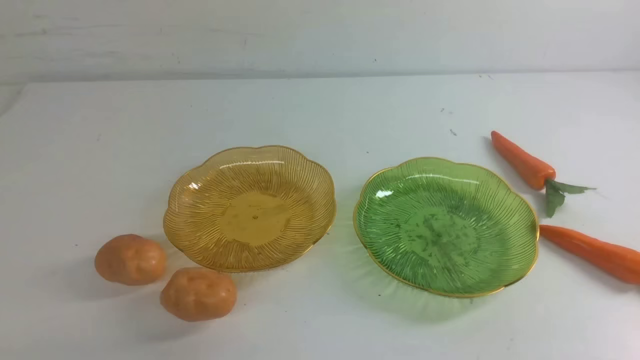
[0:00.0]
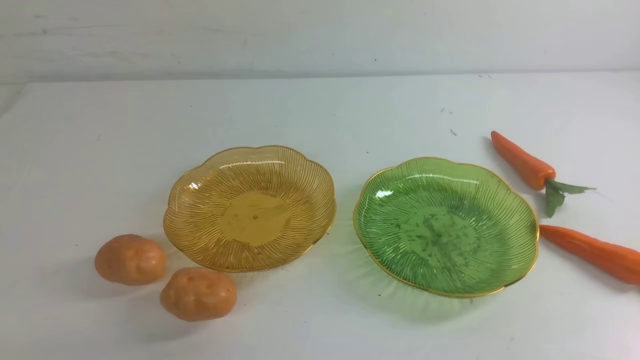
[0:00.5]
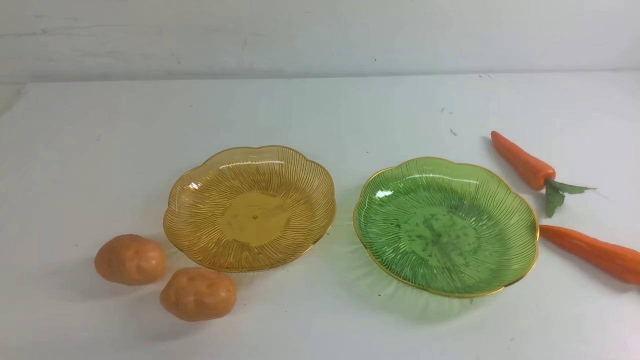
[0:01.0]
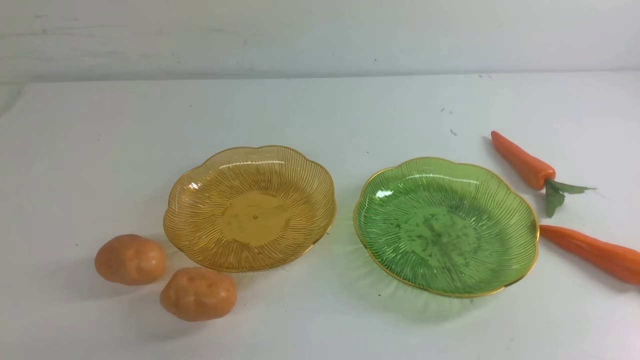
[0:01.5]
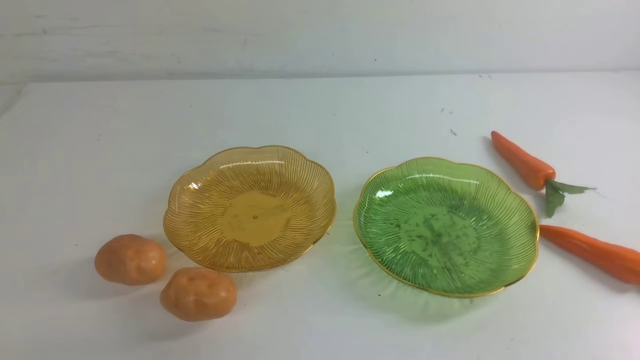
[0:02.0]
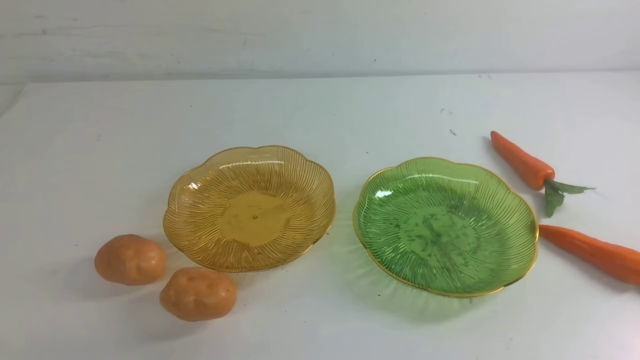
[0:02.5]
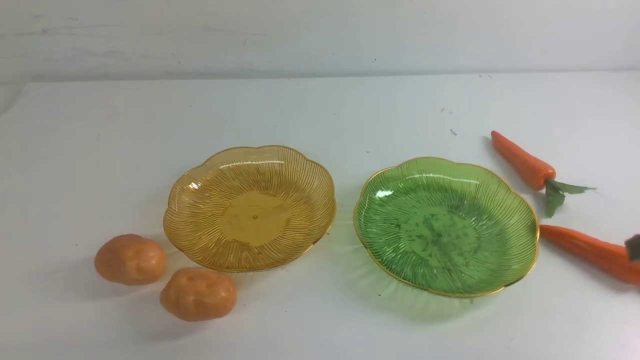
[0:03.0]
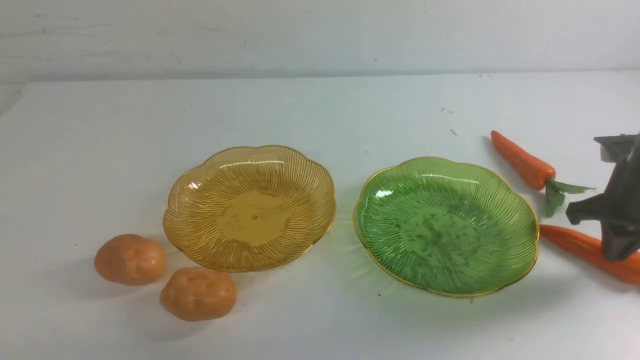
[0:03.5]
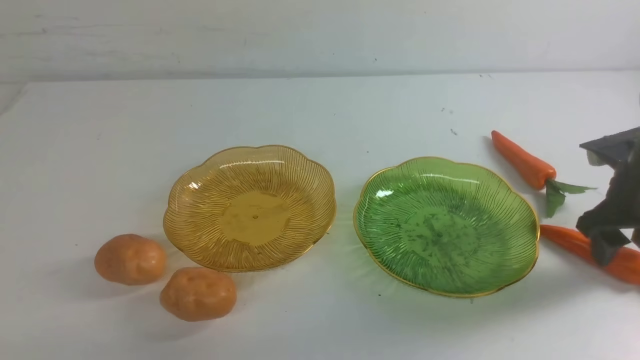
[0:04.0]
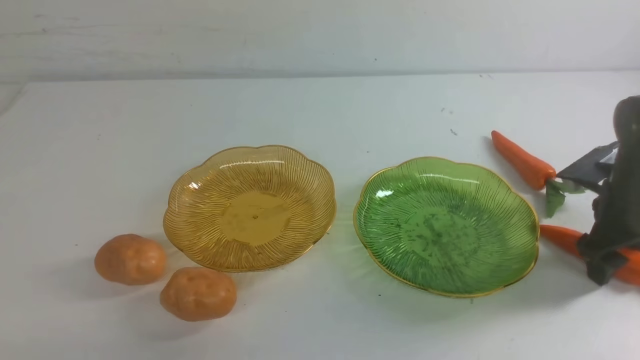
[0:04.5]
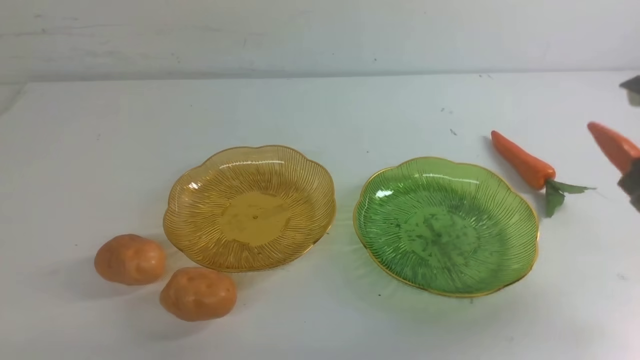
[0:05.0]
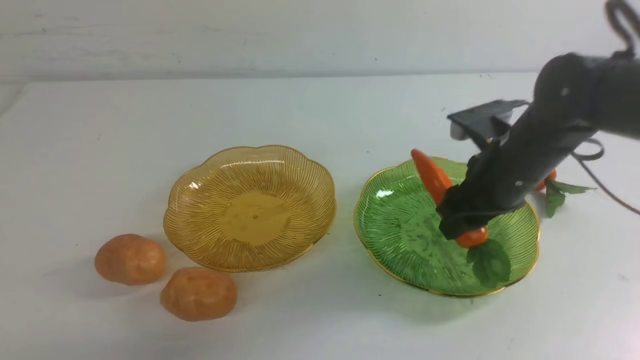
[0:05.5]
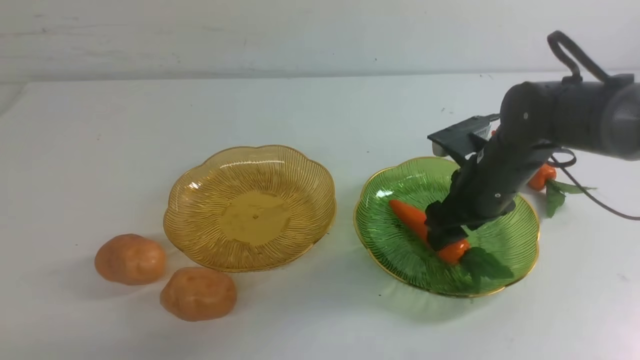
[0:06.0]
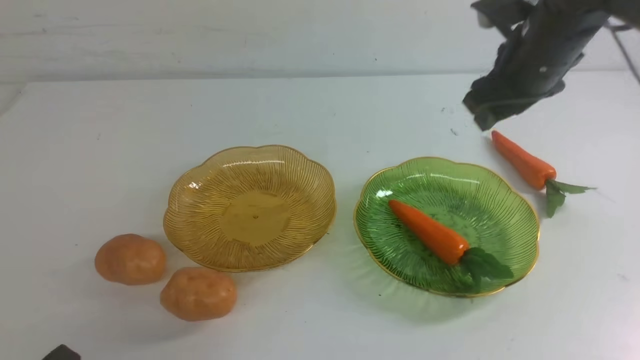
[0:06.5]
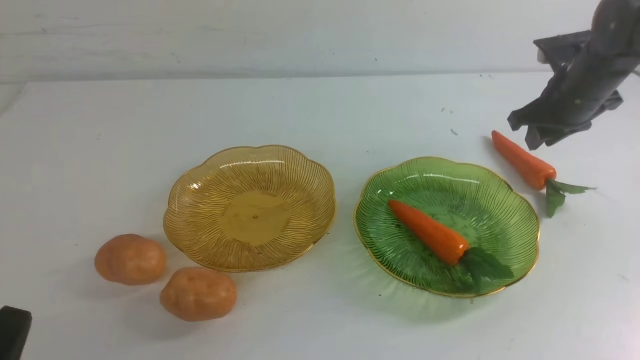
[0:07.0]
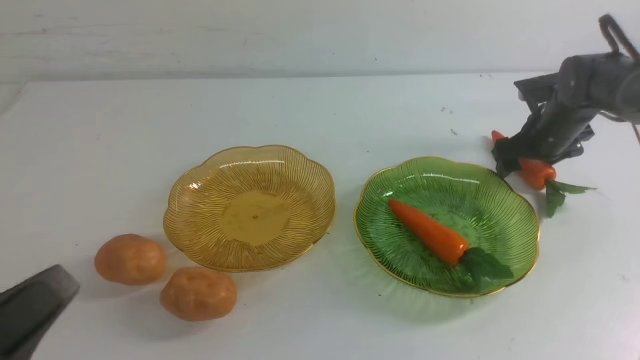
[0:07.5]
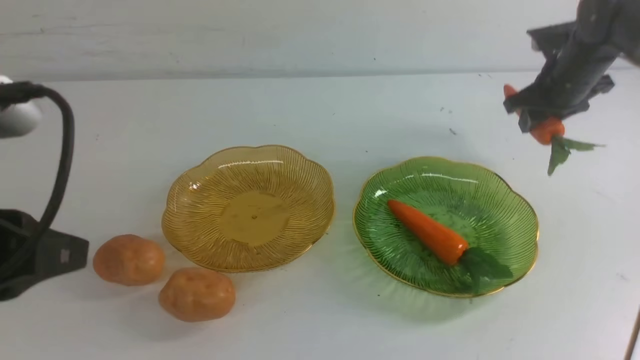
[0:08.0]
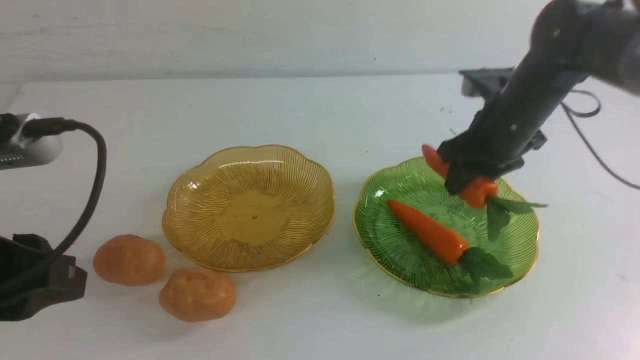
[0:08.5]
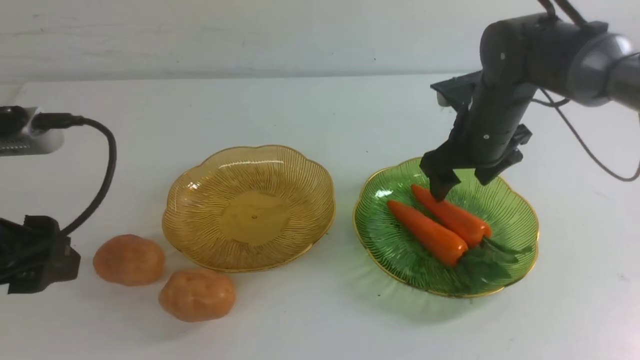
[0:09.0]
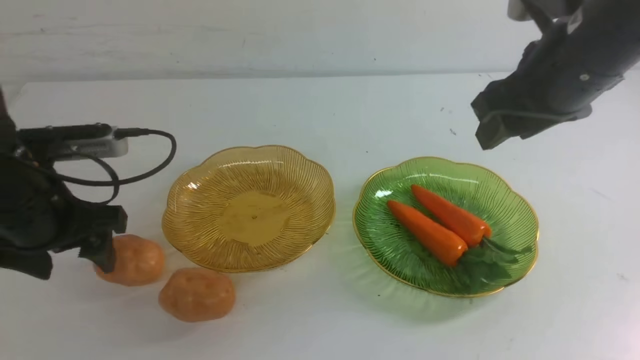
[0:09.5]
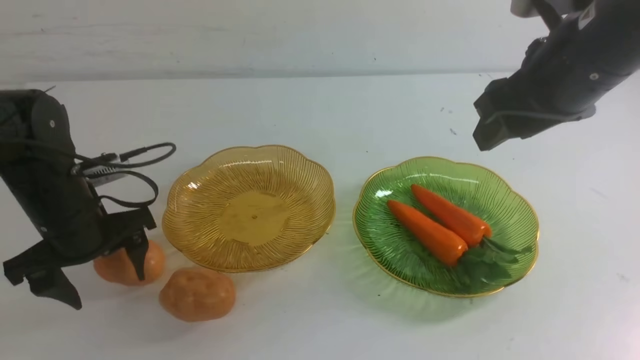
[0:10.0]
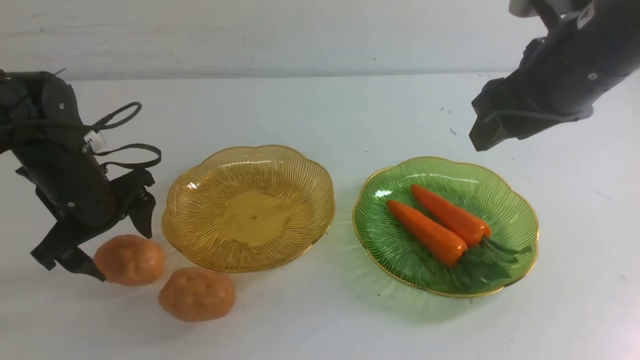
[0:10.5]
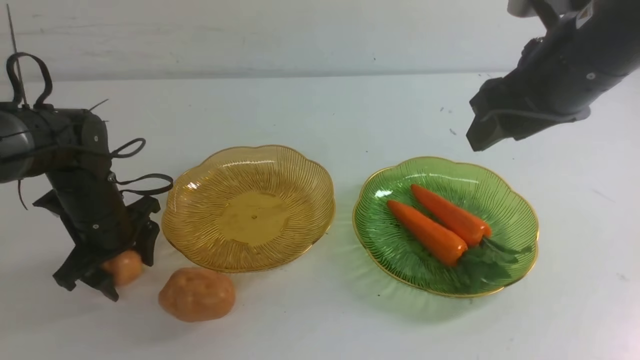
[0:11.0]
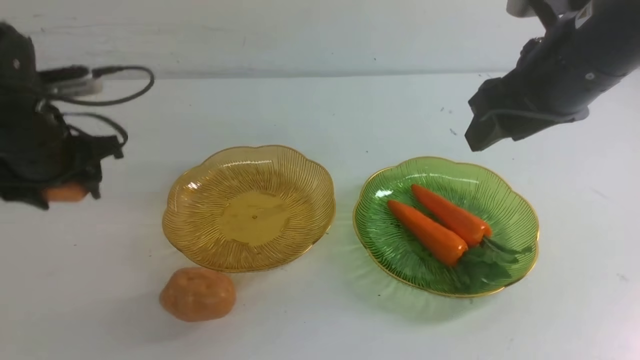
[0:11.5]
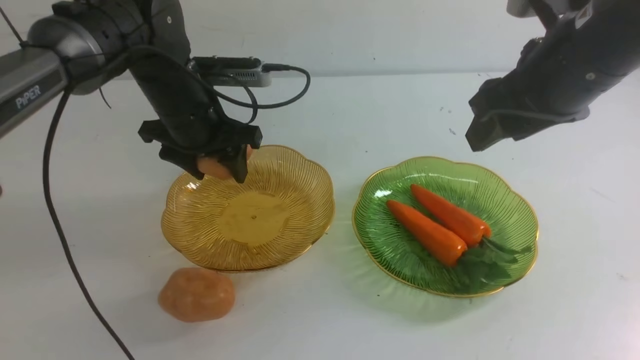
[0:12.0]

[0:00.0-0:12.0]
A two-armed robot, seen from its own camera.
Step, 0:00.0 to 0:09.0: use the right arm to grab a carrot and put it into the right plate.
0:02.0 to 0:04.0: The right gripper goes approximately 30 cm forward, and opens its fingers.
0:04.0 to 0:06.0: The right gripper goes roughly 15 cm to the left.
0:06.0 to 0:08.0: The right gripper shifts approximately 15 cm forward, to the right and upward, while the left gripper is displaced upward and forward by approximately 20 cm.
0:08.0 to 0:10.0: The right gripper moves backward, upward and to the left, roughly 25 cm. The left gripper heads forward and downward, covering approximately 25 cm, and opens its fingers.
0:10.0 to 0:12.0: The left gripper moves to the right and forward, about 15 cm.

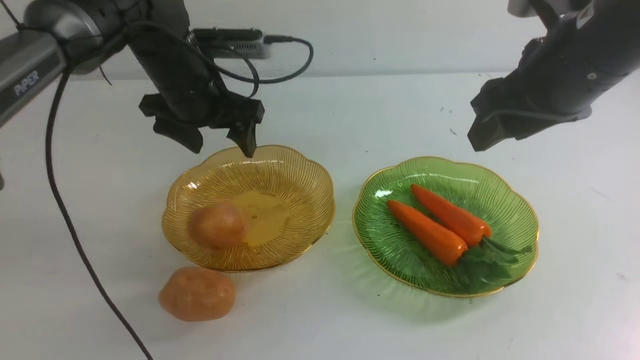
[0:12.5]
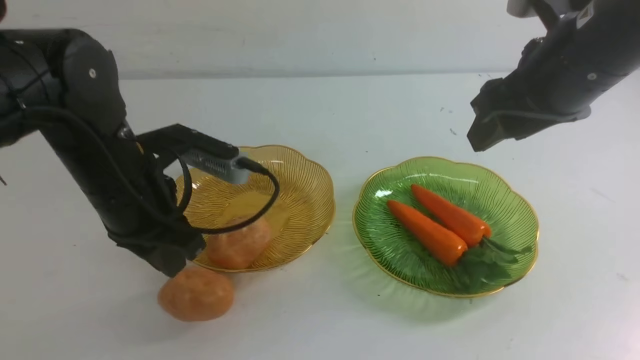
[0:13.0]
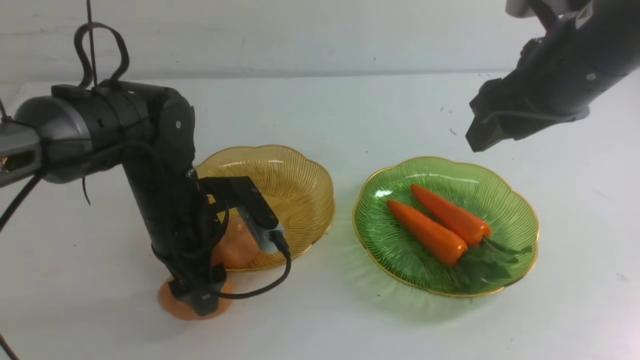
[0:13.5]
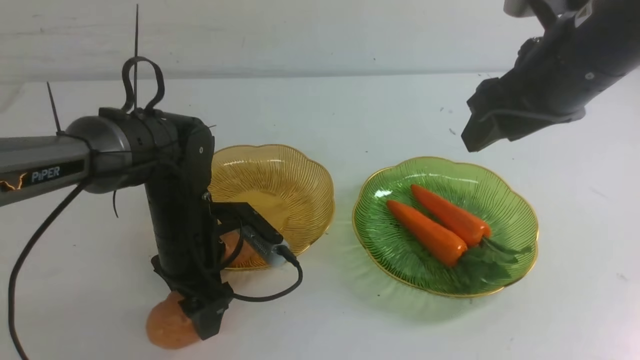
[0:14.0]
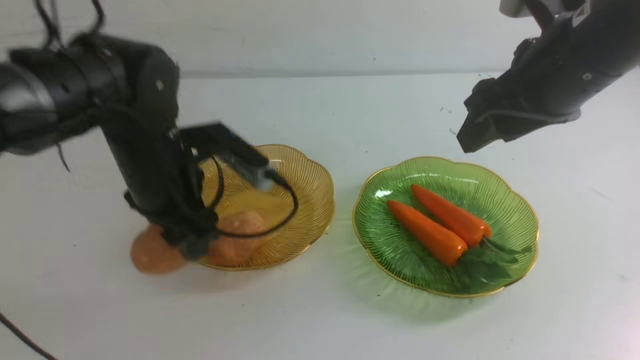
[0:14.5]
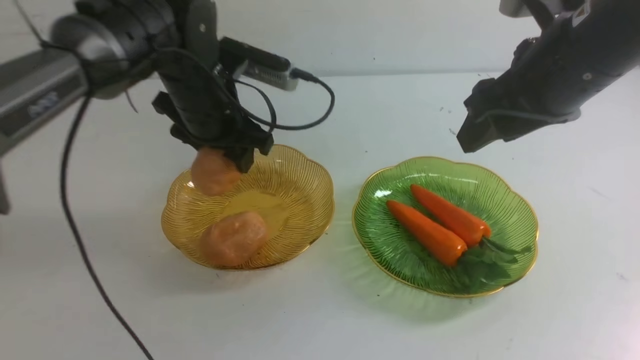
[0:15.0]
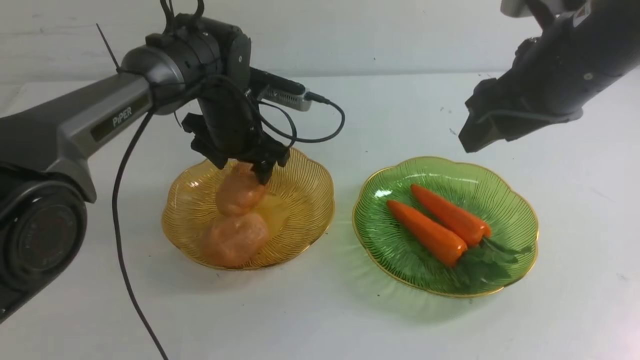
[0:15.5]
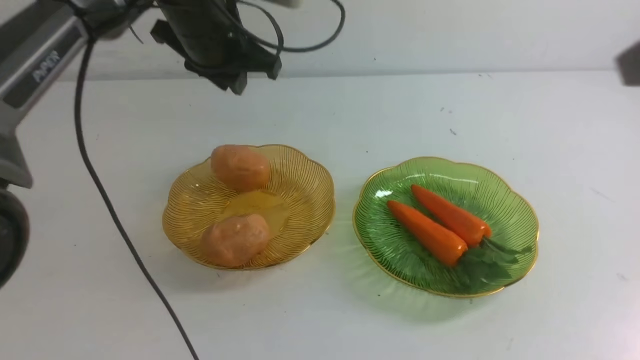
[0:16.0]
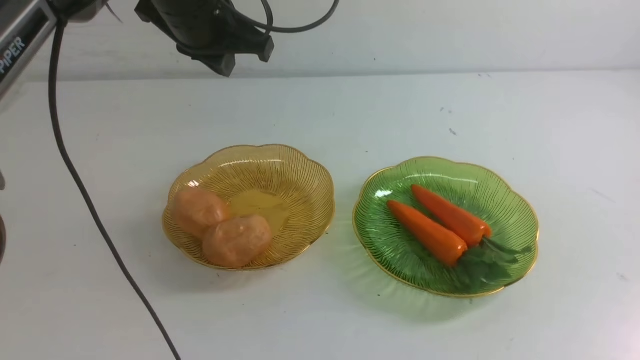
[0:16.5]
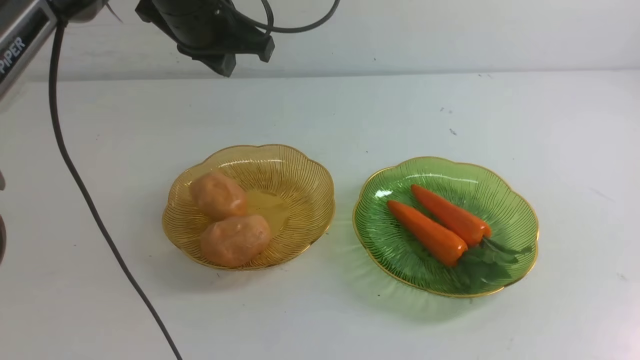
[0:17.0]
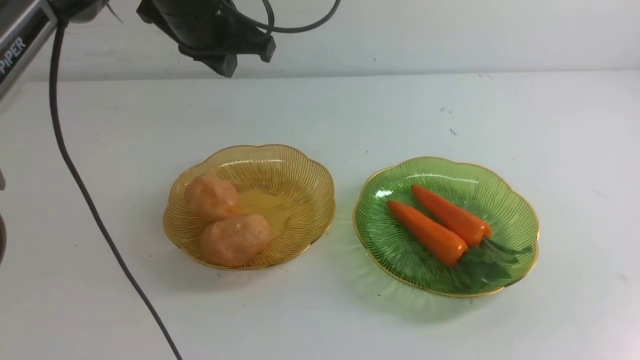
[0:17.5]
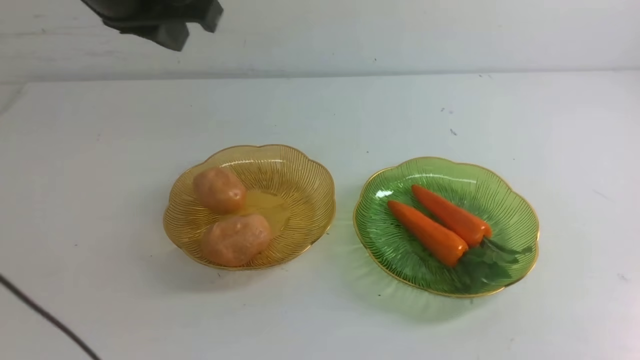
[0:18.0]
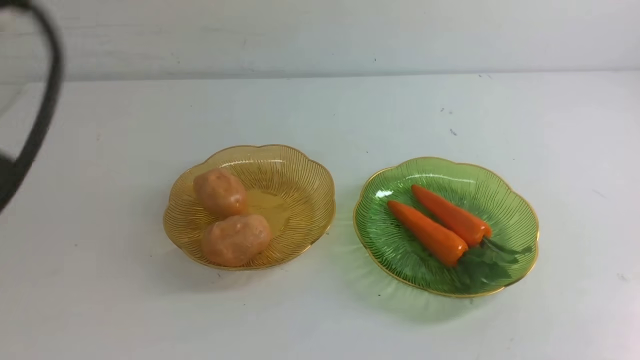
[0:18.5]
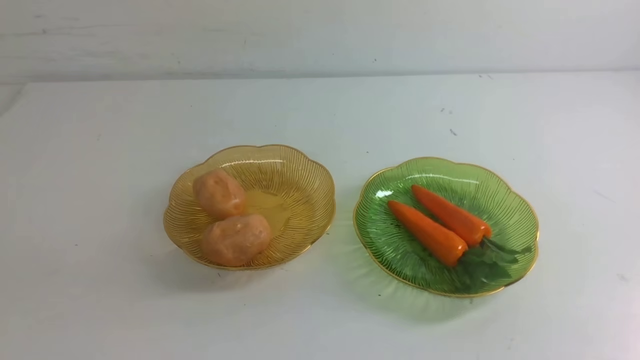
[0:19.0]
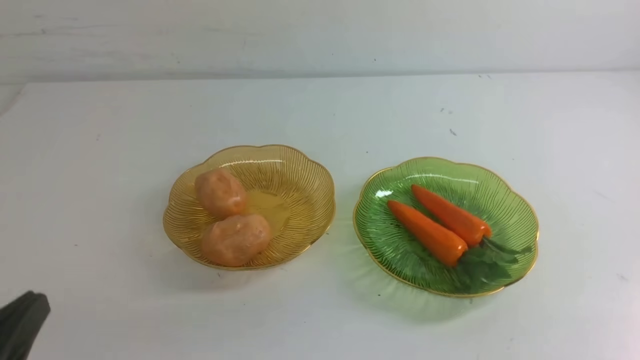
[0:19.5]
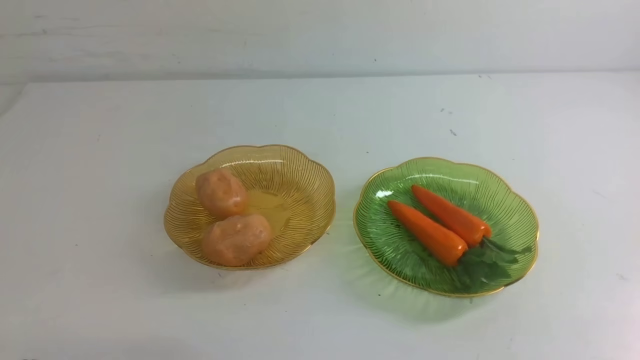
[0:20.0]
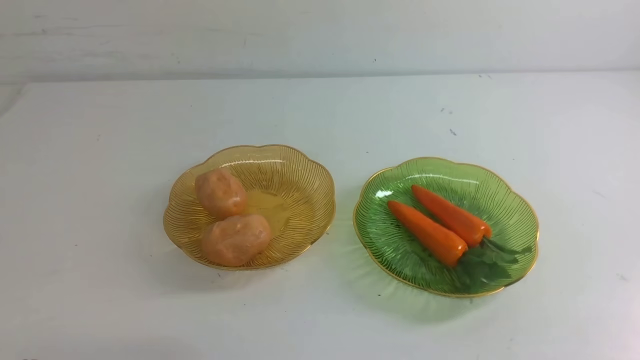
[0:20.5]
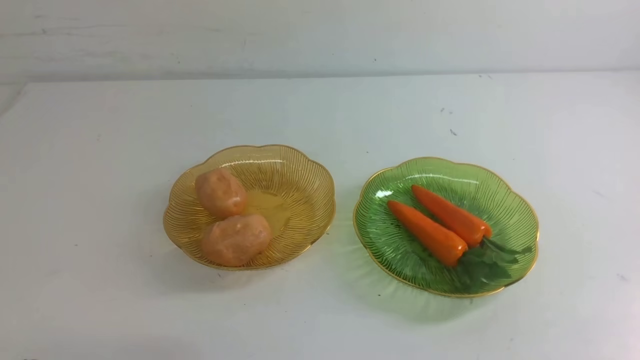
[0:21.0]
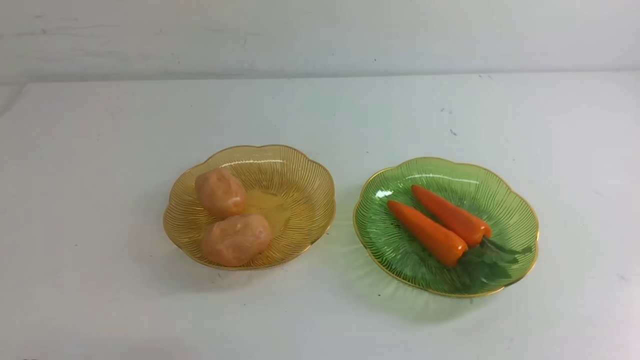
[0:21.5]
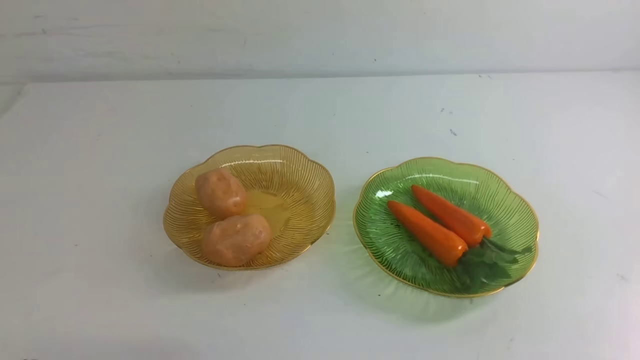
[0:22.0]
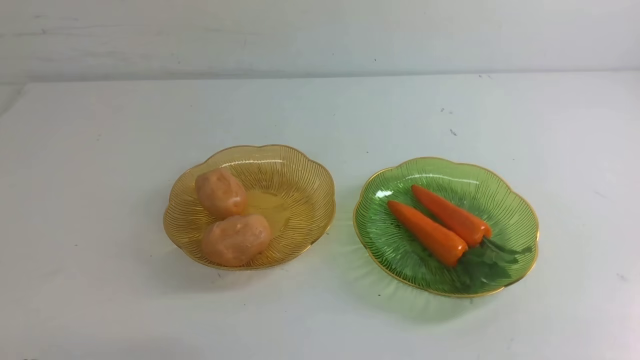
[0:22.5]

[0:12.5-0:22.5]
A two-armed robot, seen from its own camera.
Step, 0:12.5 to 0:16.0: Grab a potato with your left arm and put it on the left plate.
0:12.5 to 0:14.5: The left gripper travels downward and back again, about 10 cm each way.
0:14.5 to 0:16.5: The right gripper travels backward and to the right by about 20 cm, and closes; the left gripper heads upward and forward, covering roughly 15 cm, and closes its fingers.
0:16.5 to 0:18.5: The left gripper is displaced backward by approximately 30 cm. Meanwhile the right gripper travels downward by approximately 20 cm.
0:18.5 to 0:20.5: The left gripper moves downward, roughly 25 cm.
0:20.5 to 0:22.5: Both grippers stay about where they are.
